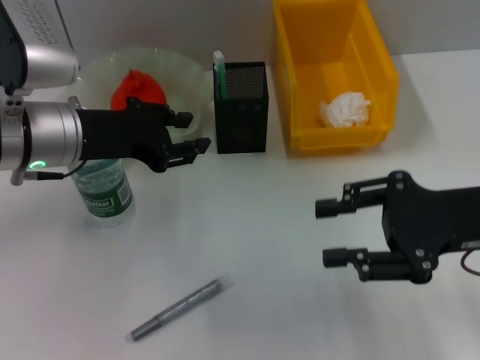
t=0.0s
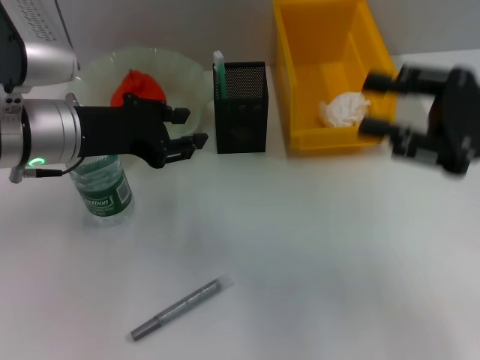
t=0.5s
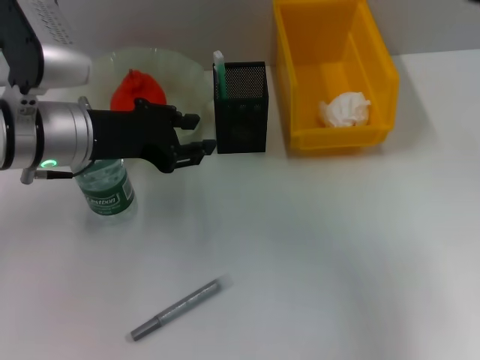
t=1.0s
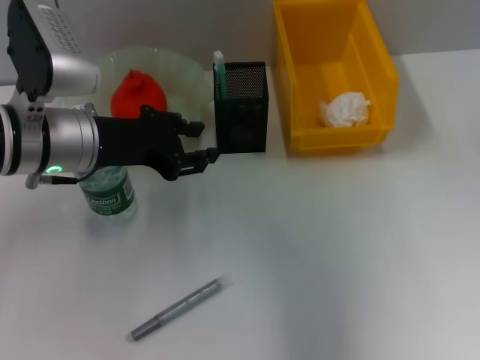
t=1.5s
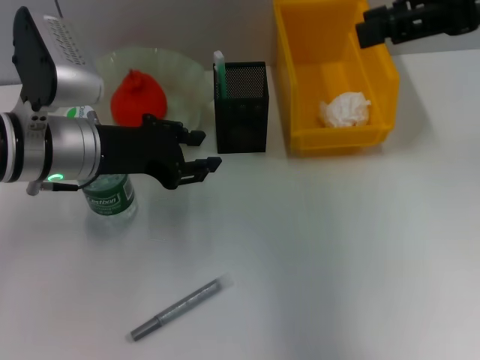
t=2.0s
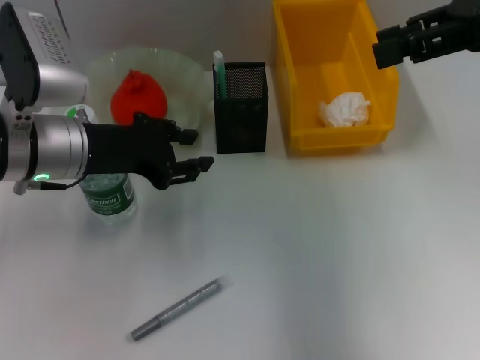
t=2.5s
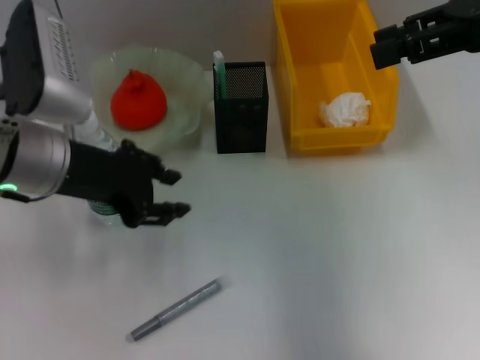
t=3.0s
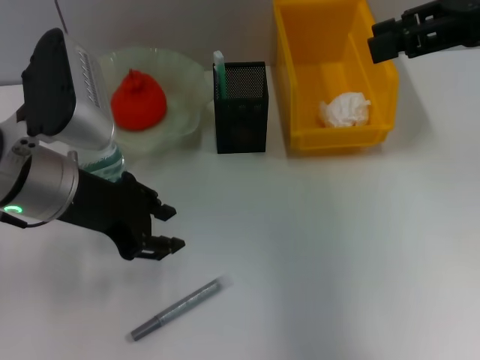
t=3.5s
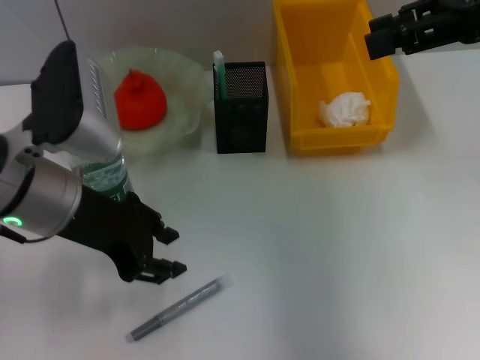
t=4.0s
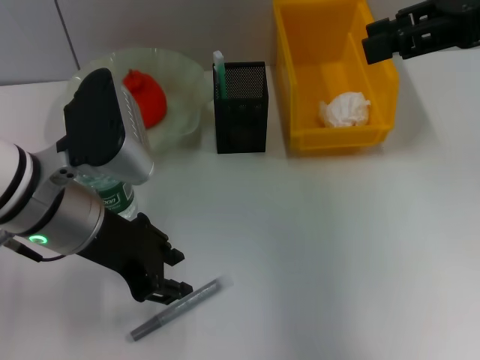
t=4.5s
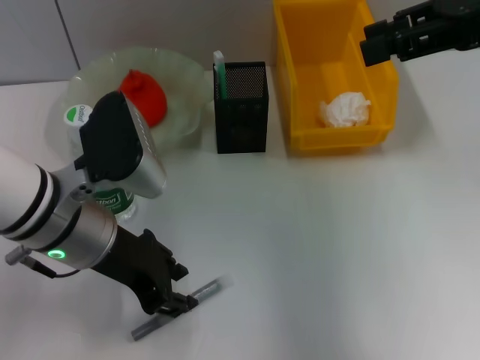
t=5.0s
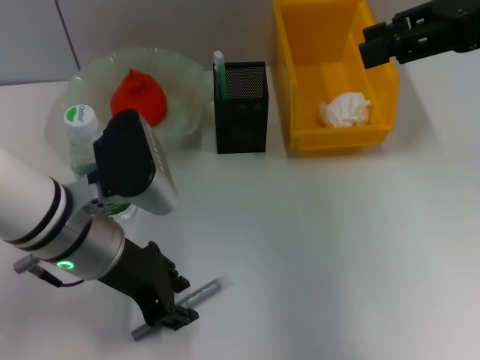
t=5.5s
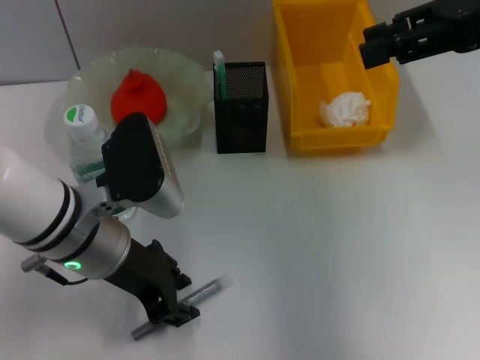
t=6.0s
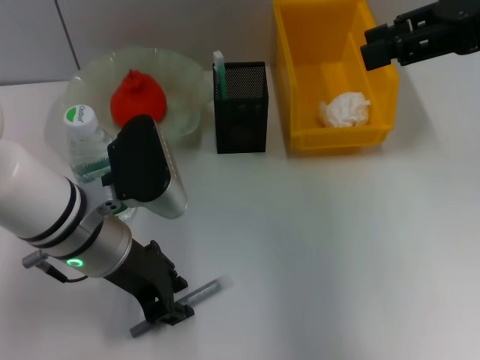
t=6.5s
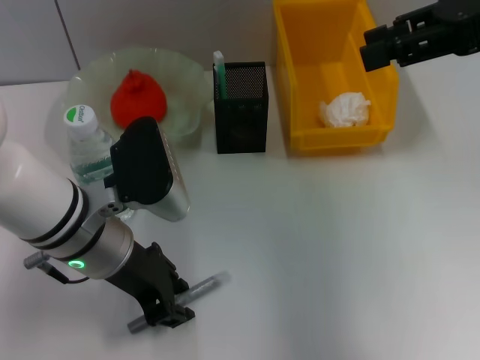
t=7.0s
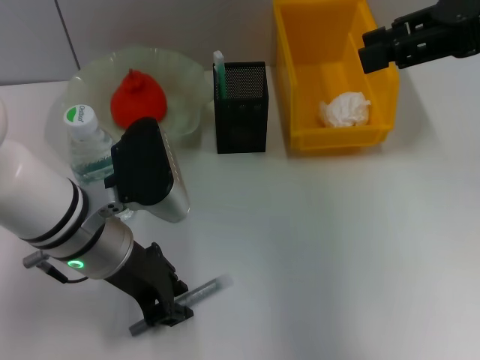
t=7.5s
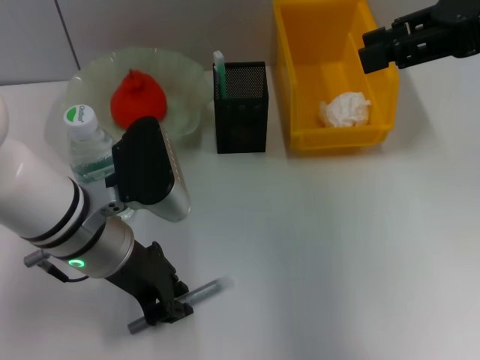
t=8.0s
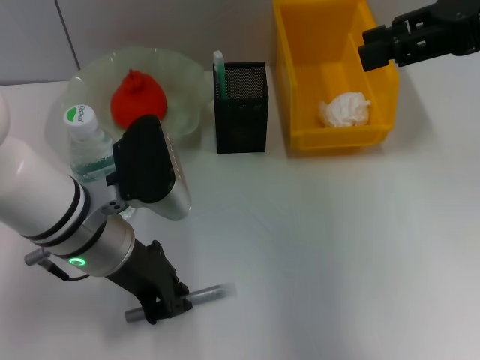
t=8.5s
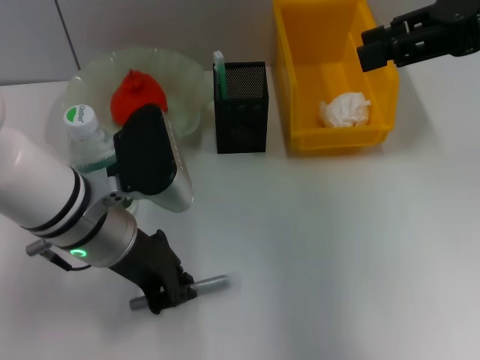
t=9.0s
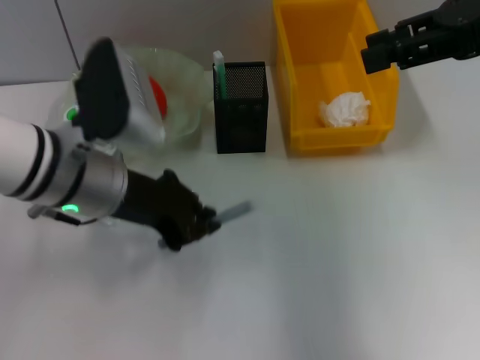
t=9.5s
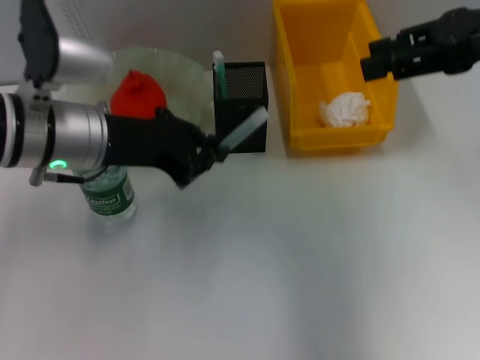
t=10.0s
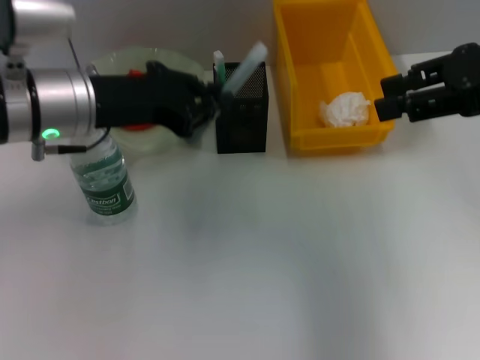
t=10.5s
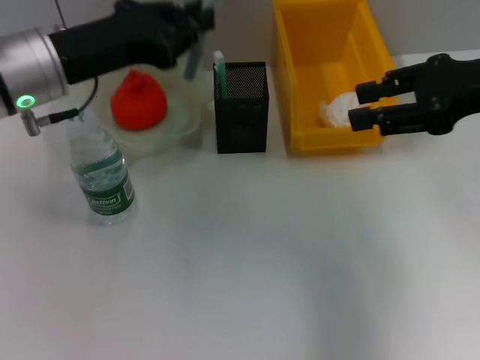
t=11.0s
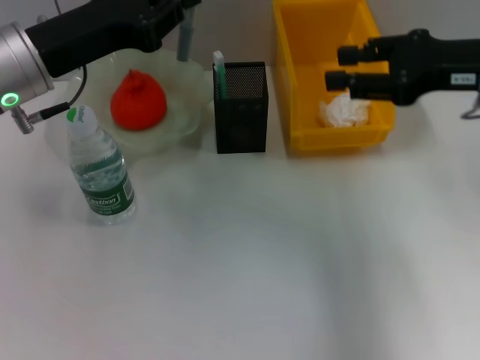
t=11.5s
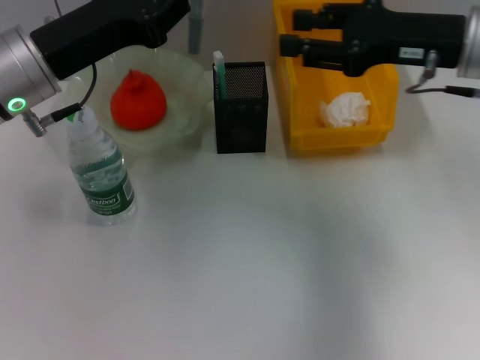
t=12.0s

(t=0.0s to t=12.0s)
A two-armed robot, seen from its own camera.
Step, t=0.0s - t=8.0s: Grab the gray glue with the left hand.
t=0.0s - t=2.0s: The right gripper shifts approximately 20 cm upward and forward.
t=2.0s - t=4.0s: The left gripper shifts by approximately 5 cm.
t=4.0s - t=6.0s: The left gripper travels downward by some 5 cm.
t=6.0s - t=8.0s: Both grippers stay put.
t=8.0s - t=10.0s: The left gripper ends up about 5 cm from where it was.
t=10.0s - t=12.0s: The right gripper goes roughly 5 cm downward.

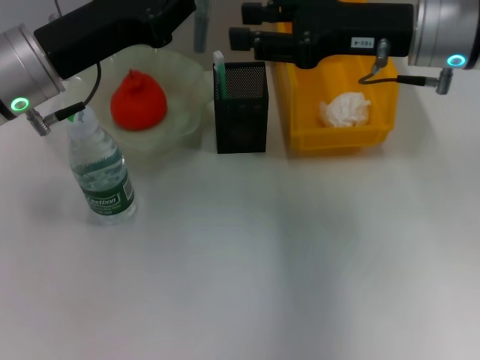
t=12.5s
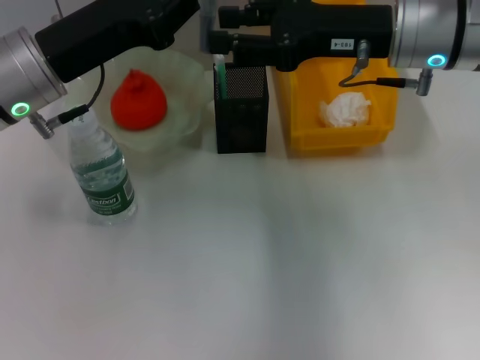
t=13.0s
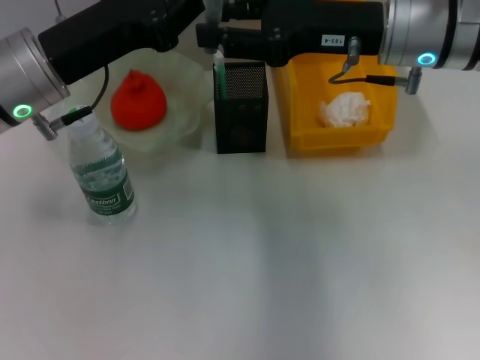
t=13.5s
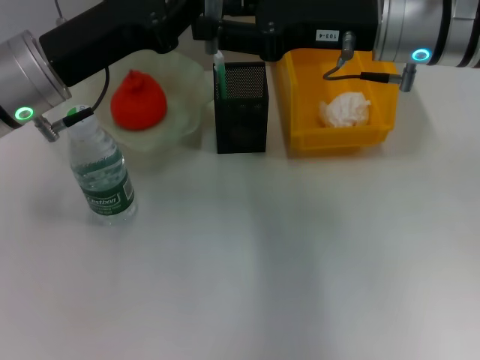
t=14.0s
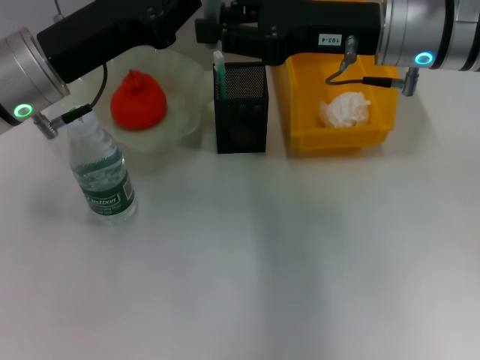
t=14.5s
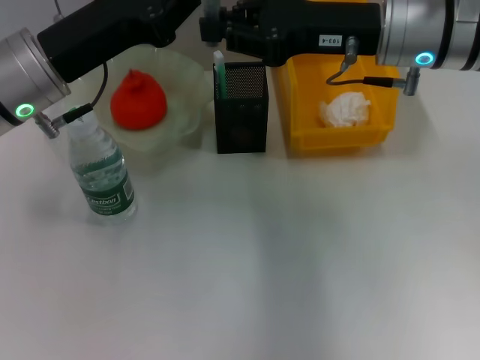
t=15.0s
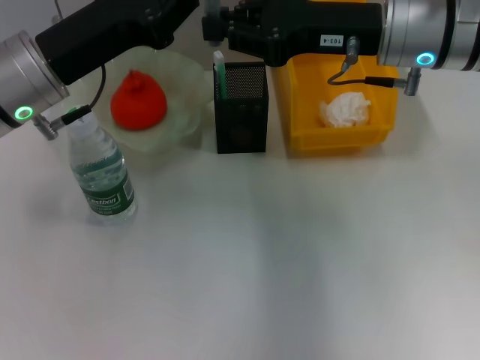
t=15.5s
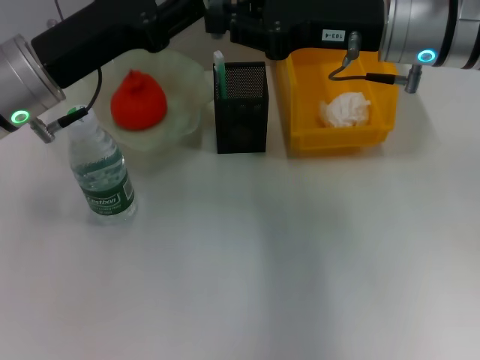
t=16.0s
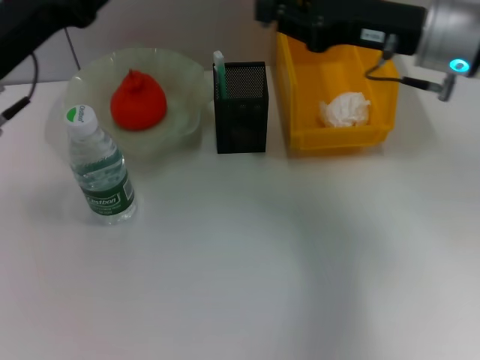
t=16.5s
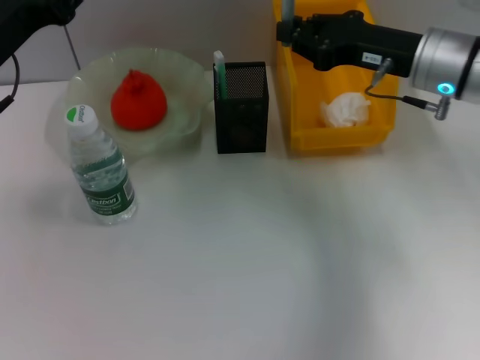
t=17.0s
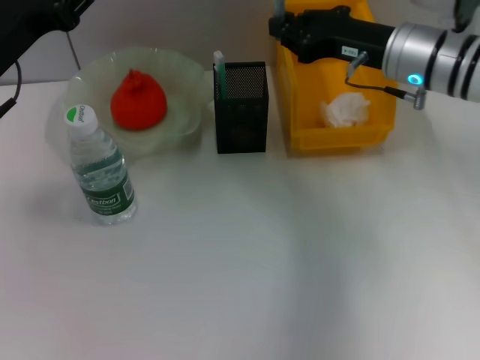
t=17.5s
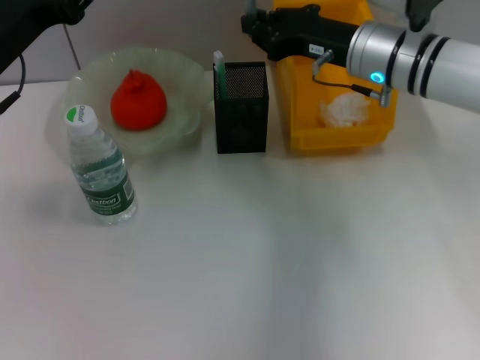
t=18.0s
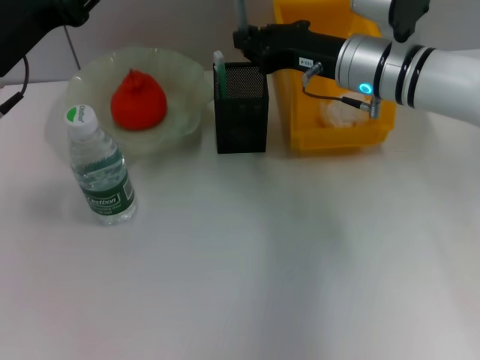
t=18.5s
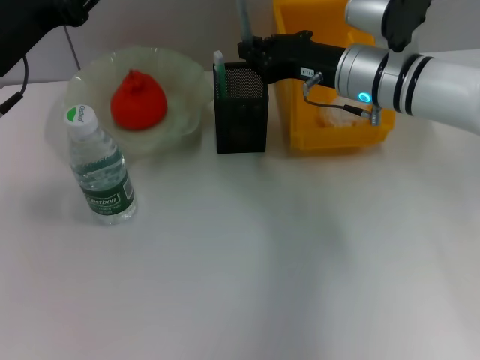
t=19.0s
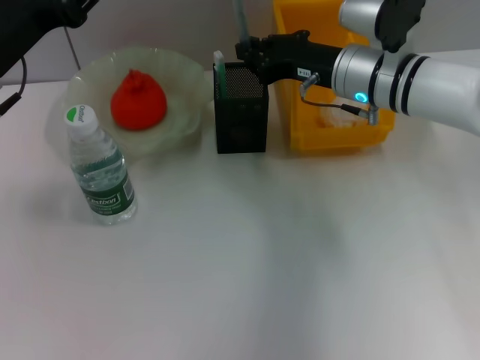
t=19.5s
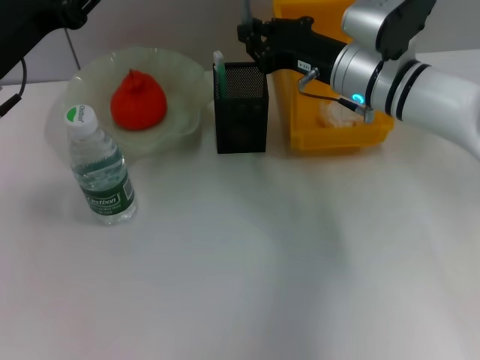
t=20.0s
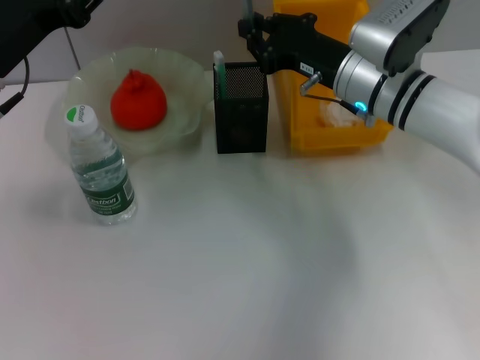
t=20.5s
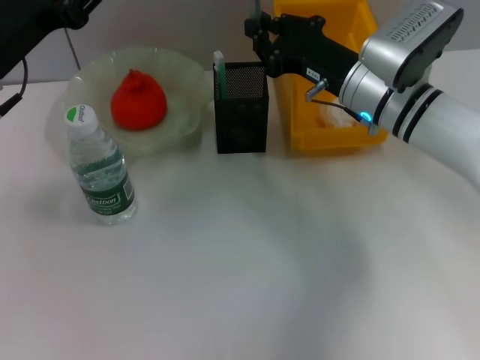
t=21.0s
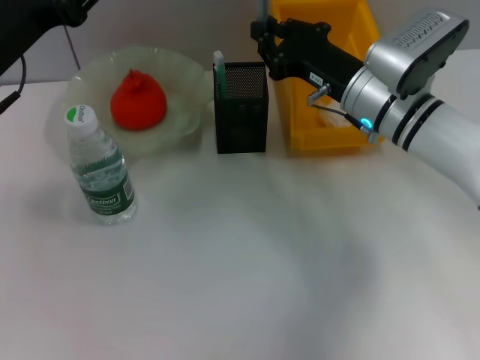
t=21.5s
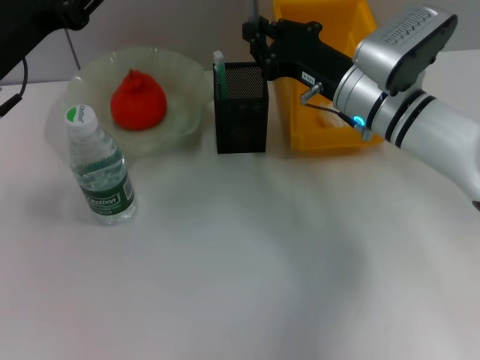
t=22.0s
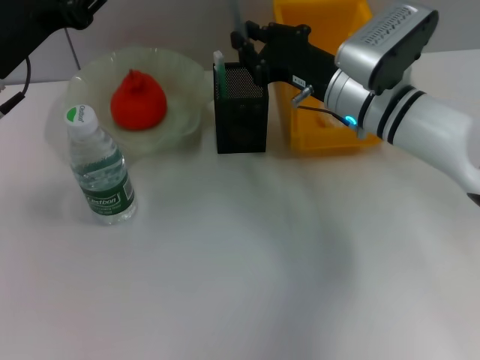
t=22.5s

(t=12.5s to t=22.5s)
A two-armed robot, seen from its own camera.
Step, t=12.5s - t=16.0s: Pass the gray glue from the left hand to the right hand.
t=12.5s - t=14.5s: The grippers stay close to where they were, moving slightly.
t=14.5s - t=16.5s: The left gripper heads to the left, covering about 5 cm, and opens its fingers.
t=16.5s - t=18.5s: The right gripper is displaced downward and to the left by approximately 10 cm.
t=18.5s - t=22.5s: The grippers make only small movements.

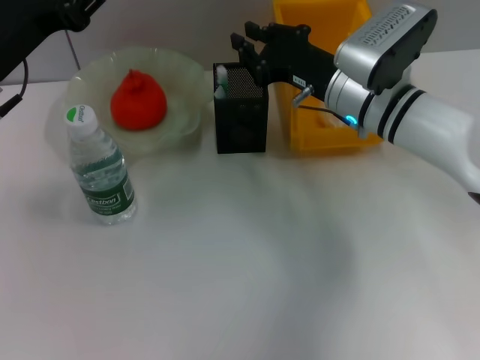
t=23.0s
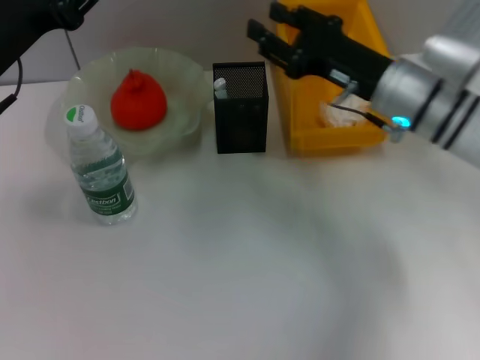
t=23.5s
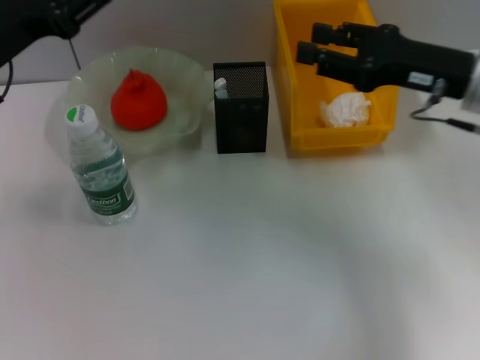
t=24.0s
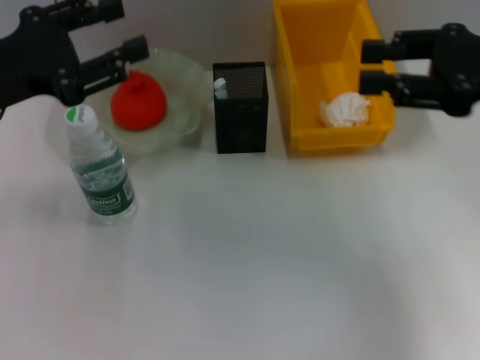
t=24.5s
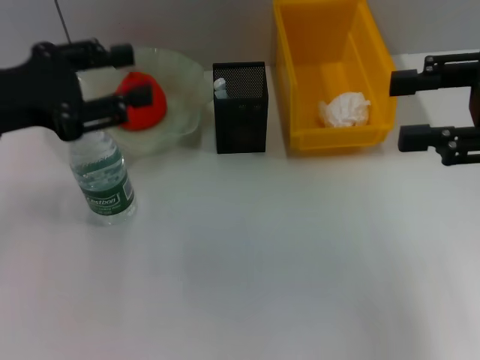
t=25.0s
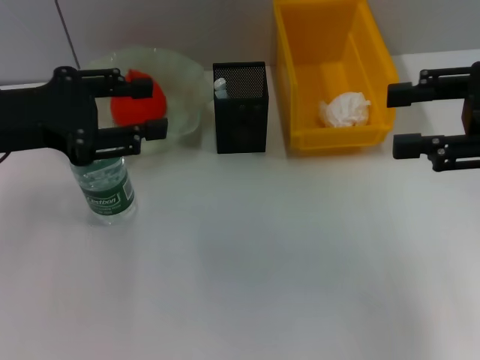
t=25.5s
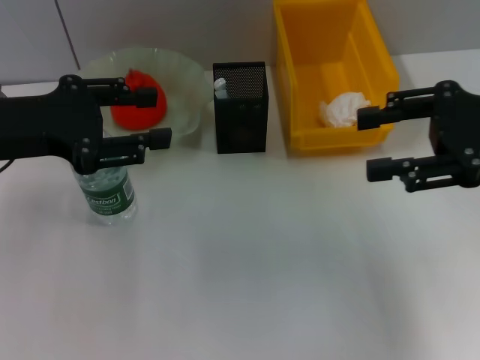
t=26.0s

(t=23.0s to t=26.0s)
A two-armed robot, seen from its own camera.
t=23.0s - t=24.5s: The right gripper heads to the right, upward and backward, covering about 20 cm, and opens up.
t=24.5s - t=26.0s: There are only small adjustments of the grippers.
